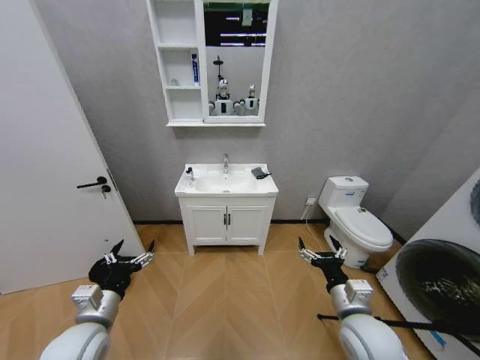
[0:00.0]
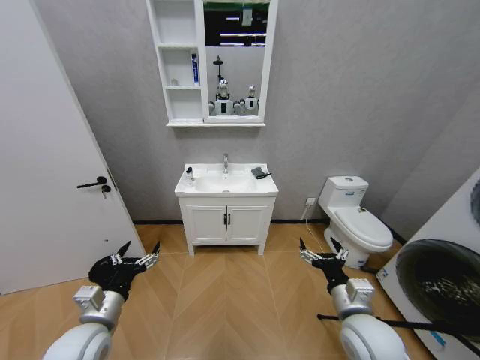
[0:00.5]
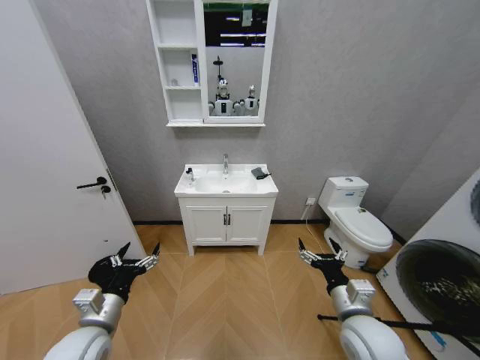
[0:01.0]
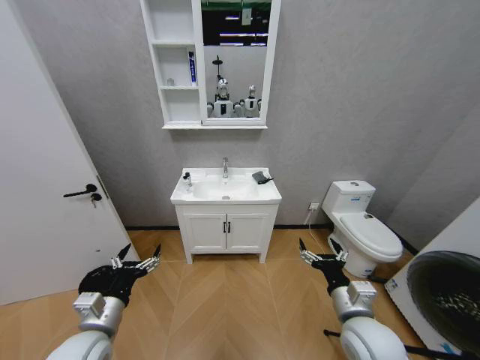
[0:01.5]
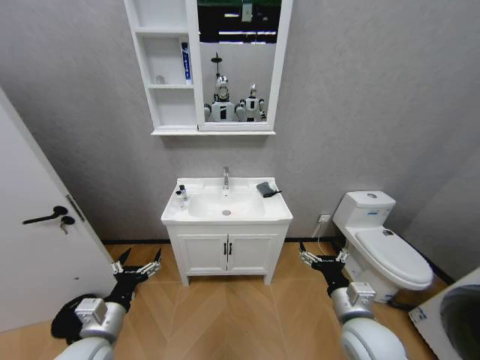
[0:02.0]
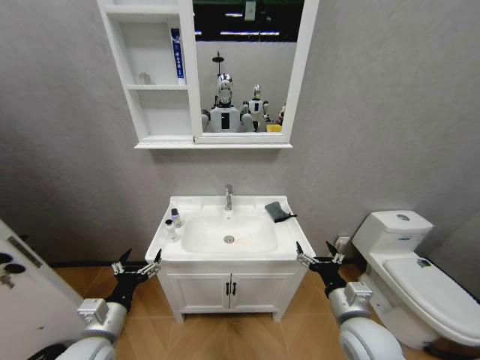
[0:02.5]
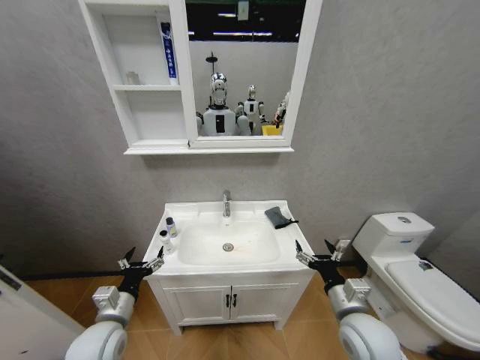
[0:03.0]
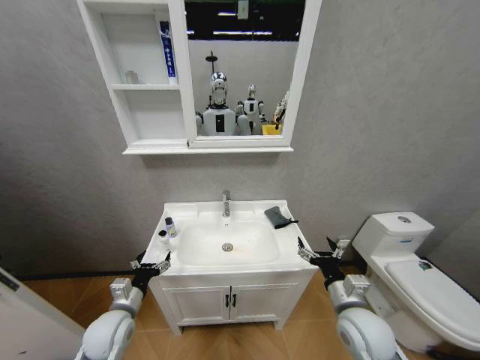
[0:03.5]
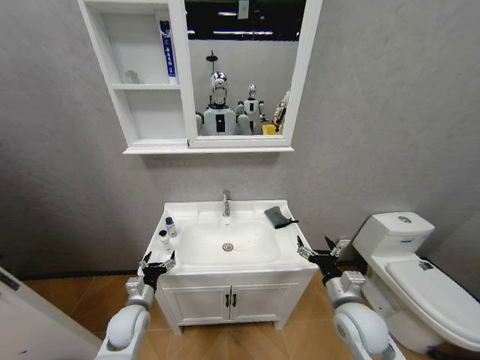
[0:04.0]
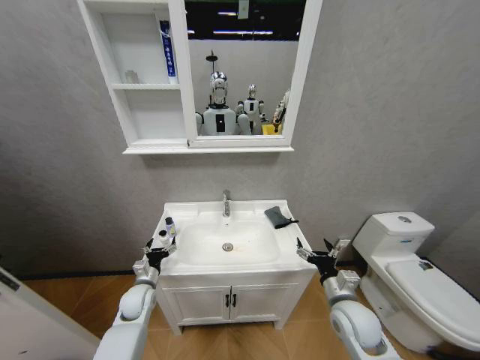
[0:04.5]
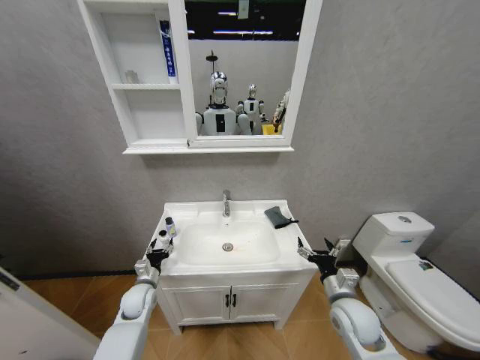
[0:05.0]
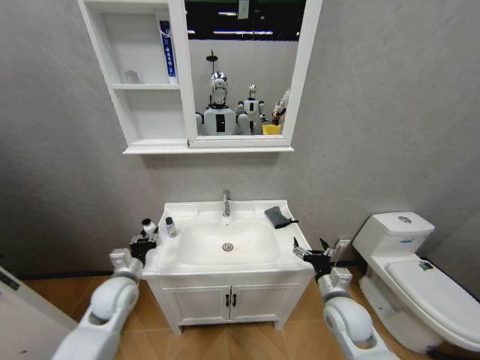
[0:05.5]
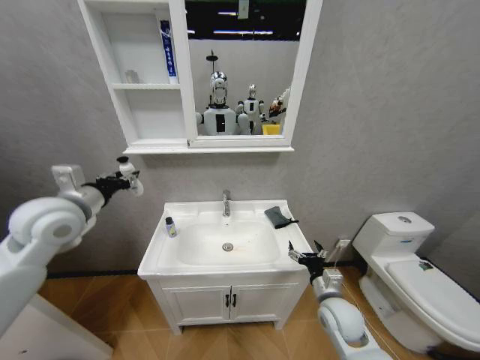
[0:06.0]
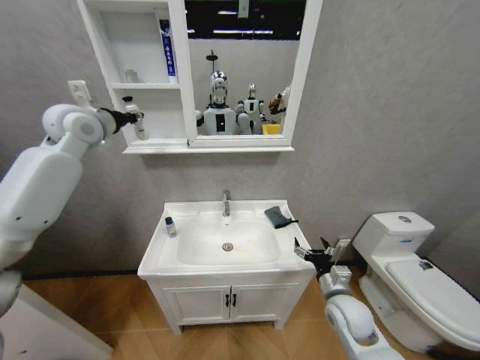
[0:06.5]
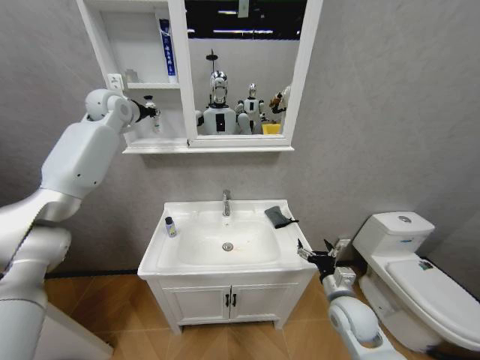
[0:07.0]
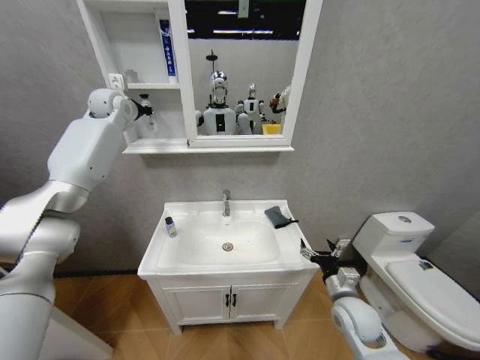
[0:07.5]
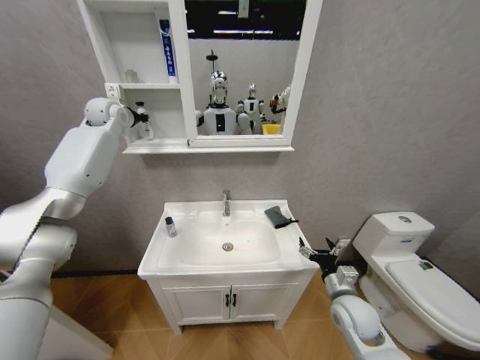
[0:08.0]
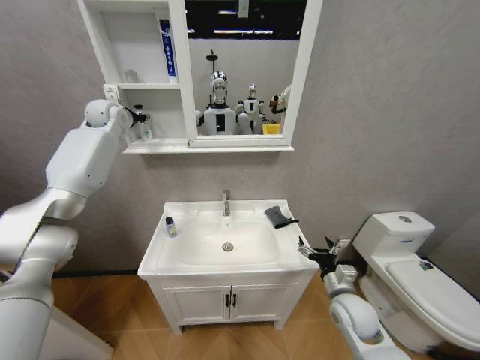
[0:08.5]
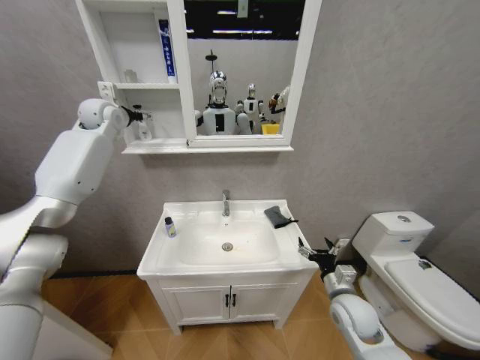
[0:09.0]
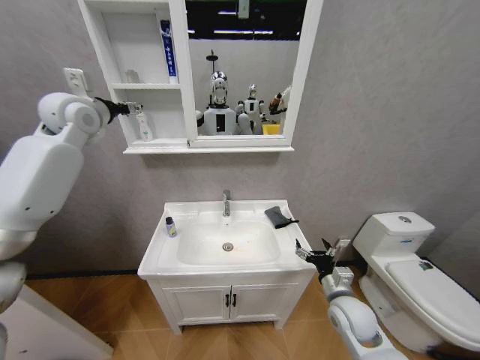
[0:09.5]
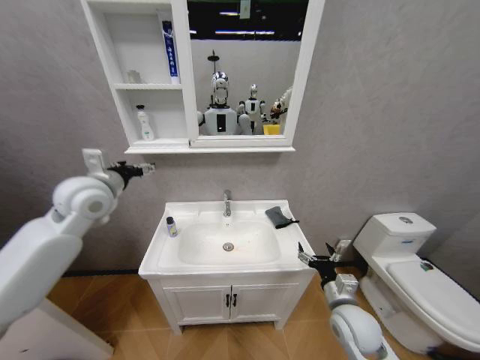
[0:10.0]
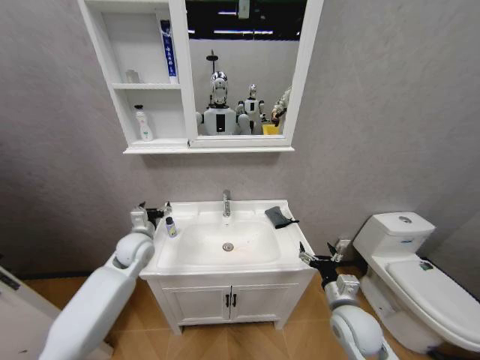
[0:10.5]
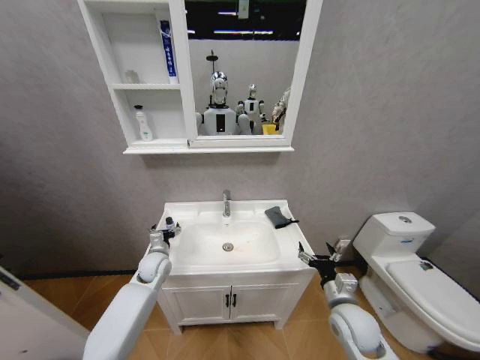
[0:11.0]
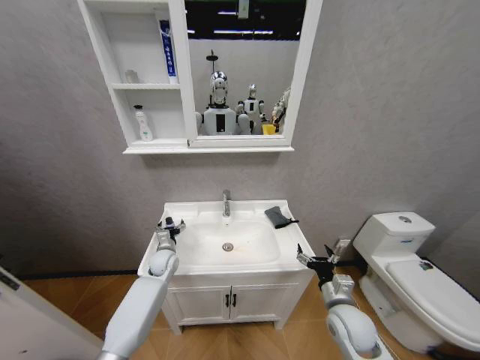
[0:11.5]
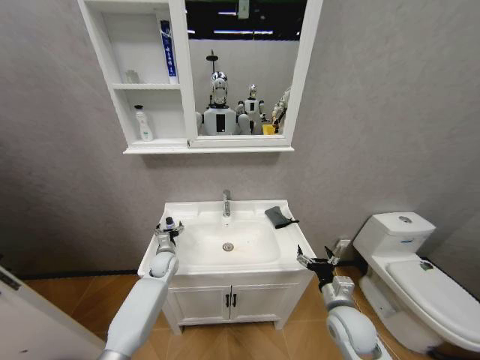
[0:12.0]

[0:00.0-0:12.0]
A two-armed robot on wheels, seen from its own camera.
Task of the whole recording: Move facial cleanser and shampoo from washbasin to cabinet, then wipe washbasin with towel.
0:02.0 to 0:04.0: The left gripper moves downward and forward, approximately 15 cm; the right gripper changes place by about 5 cm.
0:04.0 to 0:06.0: The right gripper shifts by about 5 cm; the left gripper goes some 35 cm upward, and closes its fingers.
0:06.0 to 0:08.0: The left gripper travels forward and upward by some 30 cm.
0:08.0 to 0:10.0: The left gripper shifts some 25 cm backward and downward, and opens its fingers.
0:10.0 to 0:12.0: The left gripper shifts some 35 cm downward.

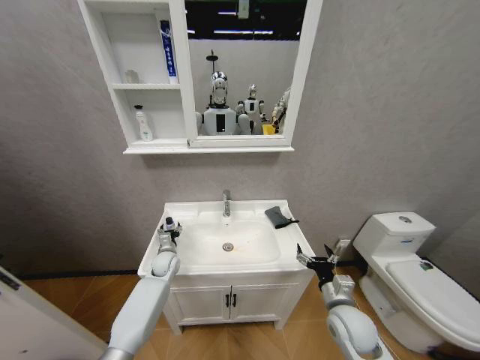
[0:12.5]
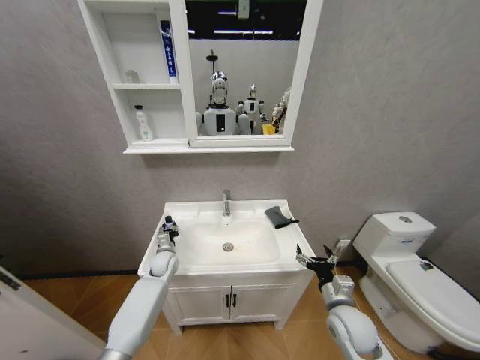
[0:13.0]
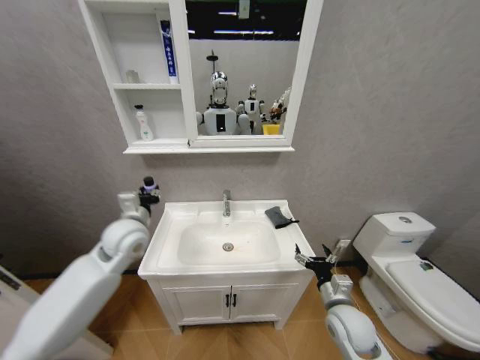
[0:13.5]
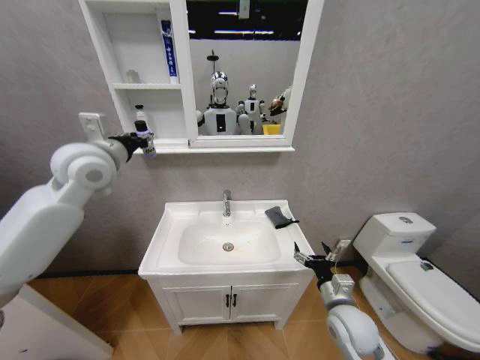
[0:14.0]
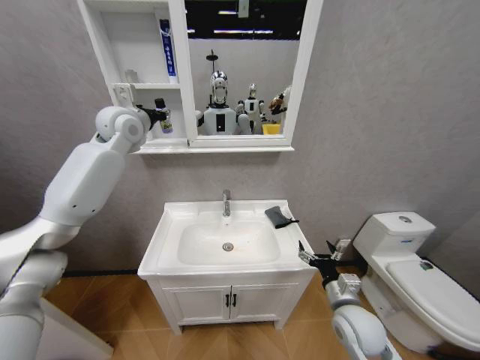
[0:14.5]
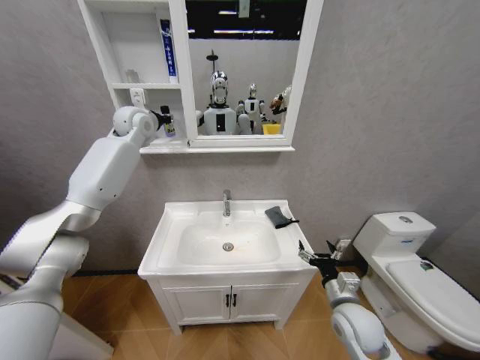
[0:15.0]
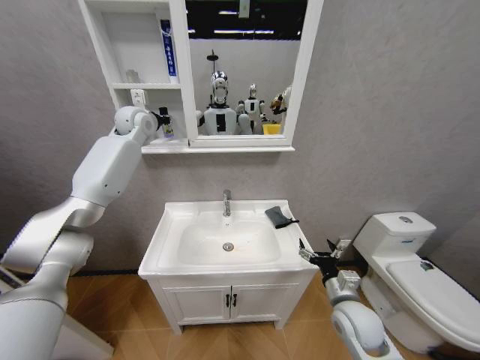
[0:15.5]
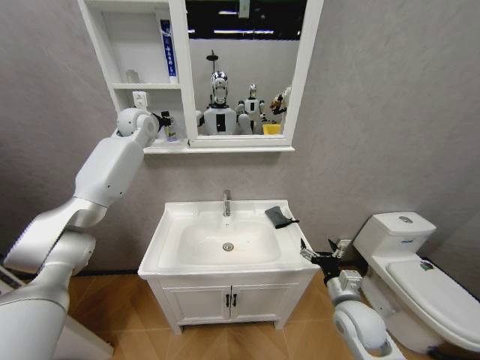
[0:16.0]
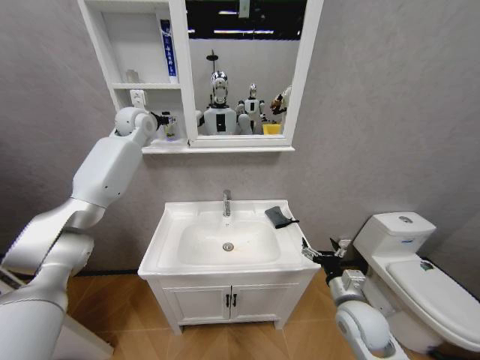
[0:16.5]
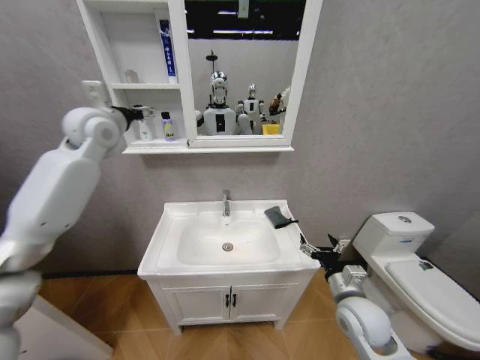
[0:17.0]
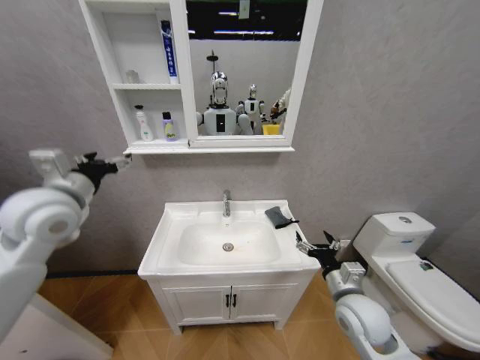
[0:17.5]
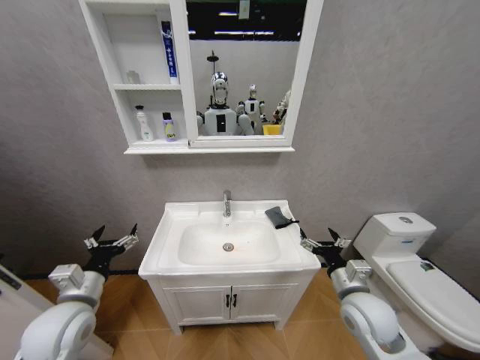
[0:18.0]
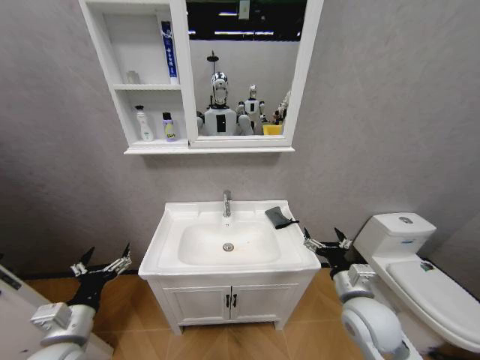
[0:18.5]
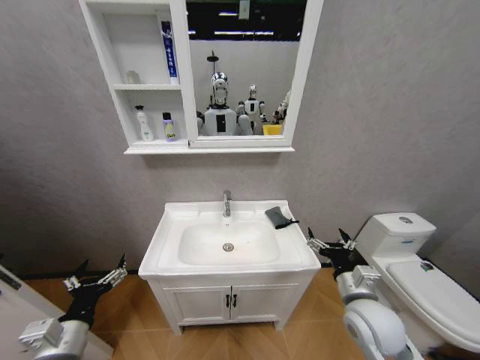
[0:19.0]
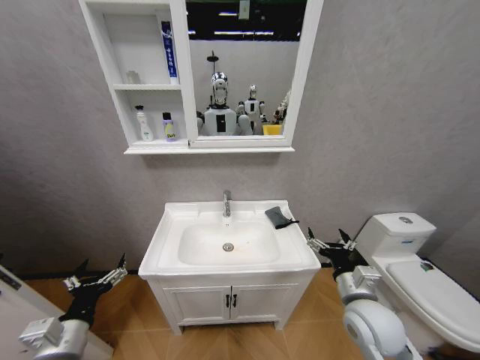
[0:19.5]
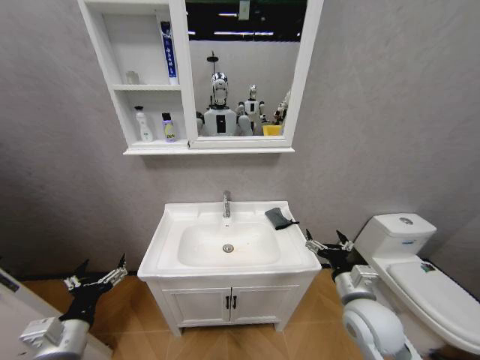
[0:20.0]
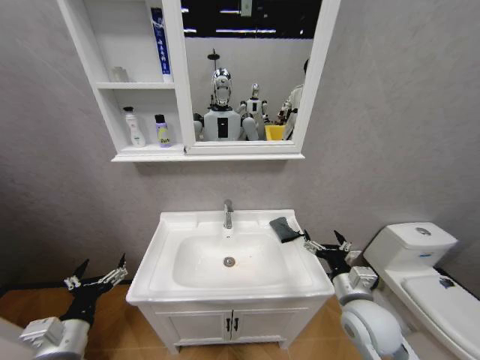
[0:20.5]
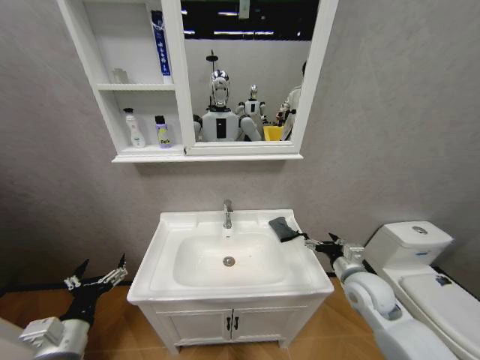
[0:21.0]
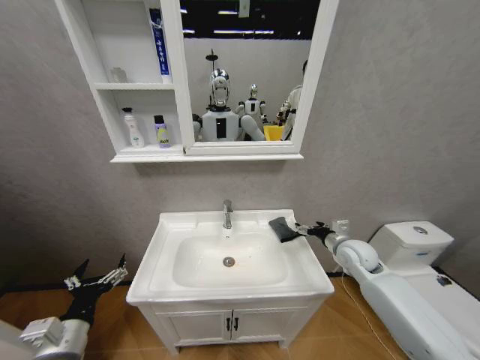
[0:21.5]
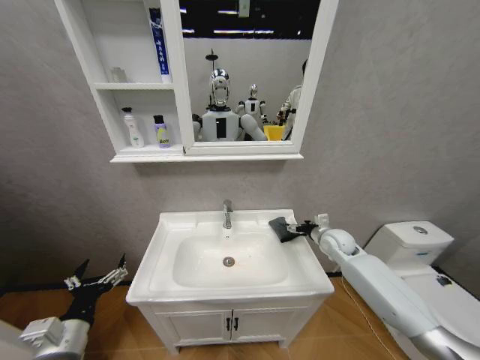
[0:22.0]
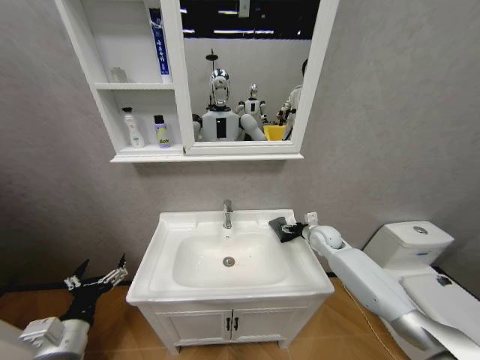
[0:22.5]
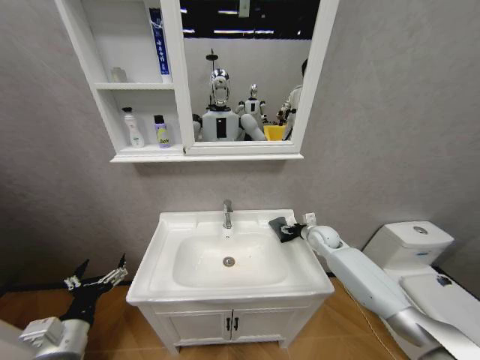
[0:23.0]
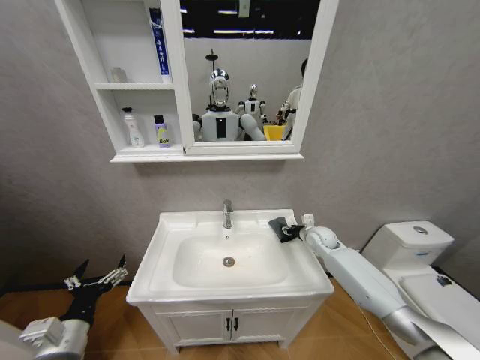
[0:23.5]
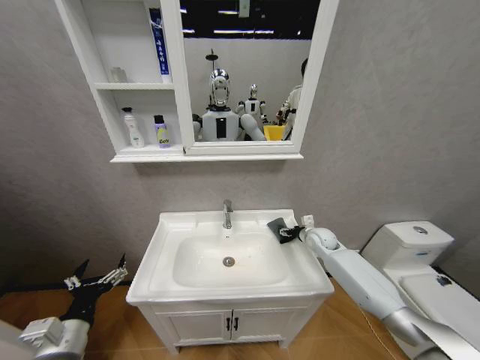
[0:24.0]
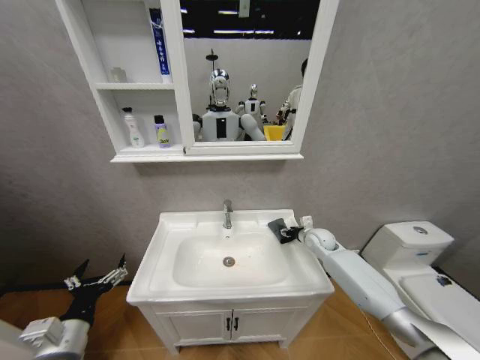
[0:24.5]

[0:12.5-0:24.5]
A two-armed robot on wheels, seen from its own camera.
Task of the whole recording: Move facial cleanser and shampoo from washbasin to cabinet, then wipe washbasin with towel.
0:12.5 to 0:14.5: The left gripper is displaced upward by about 50 cm, and closes its fingers.
0:14.5 to 0:16.5: The left gripper is displaced forward by about 5 cm, and opens.
0:16.5 to 0:18.5: The left gripper travels backward and downward by some 60 cm. Meanwhile the right gripper moves approximately 5 cm.
0:20.5 to 0:22.5: The right gripper travels forward by approximately 25 cm.
0:22.5 to 0:24.5: The grippers move only a little.

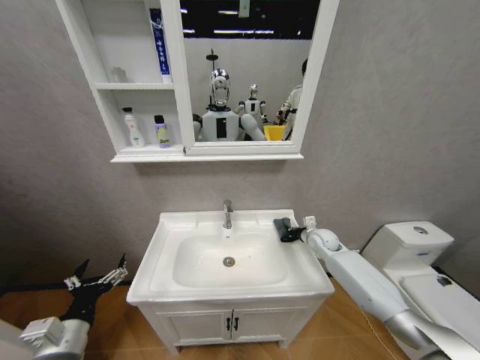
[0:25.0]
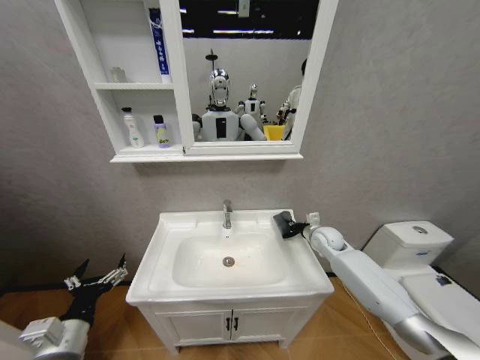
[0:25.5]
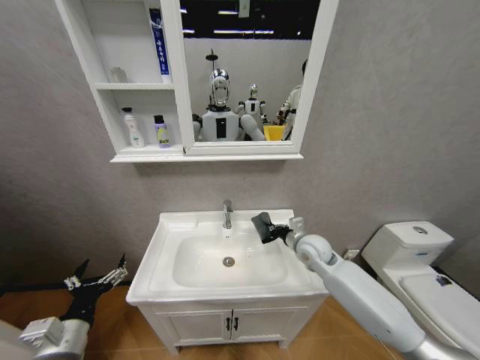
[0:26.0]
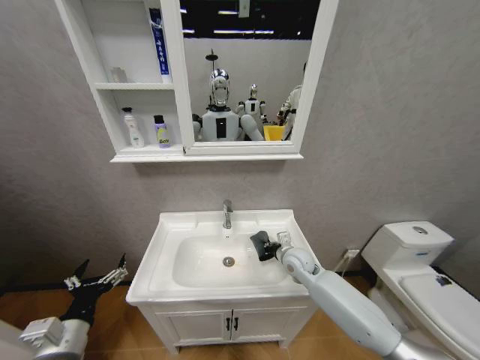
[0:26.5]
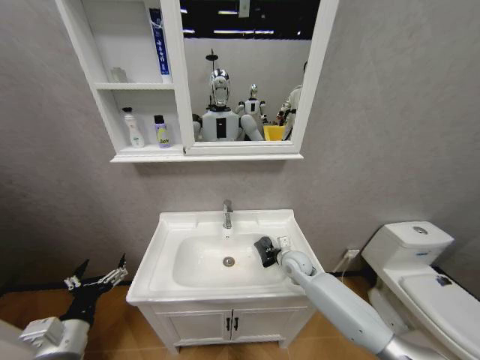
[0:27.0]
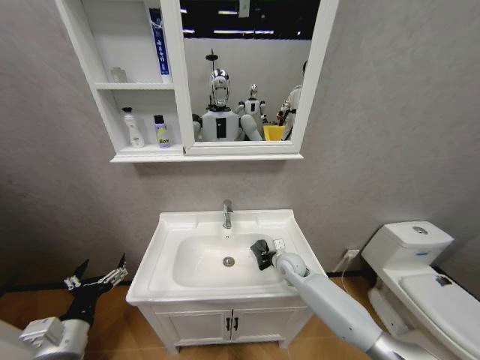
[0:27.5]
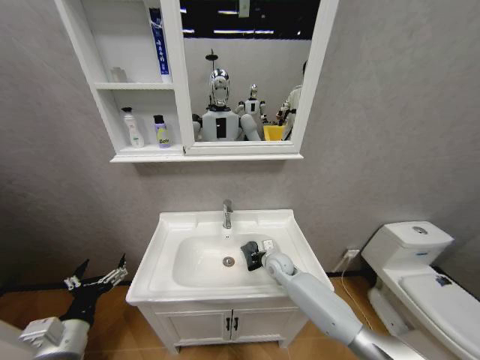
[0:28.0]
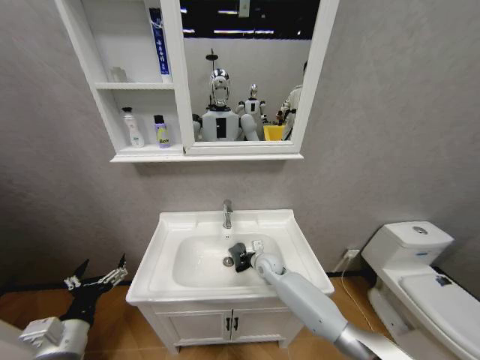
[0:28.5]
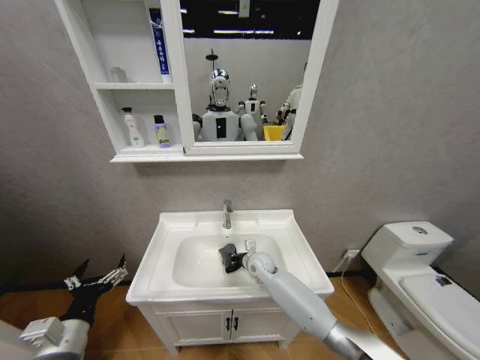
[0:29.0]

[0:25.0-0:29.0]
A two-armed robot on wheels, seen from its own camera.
Task of the whole recording: Move facial cleanser and shampoo from washbasin to cabinet, then wipe washbasin with towel.
0:25.0 to 0:27.0: The right gripper shifts some 15 cm to the left and backward.
0:27.0 to 0:29.0: The right gripper shifts roughly 10 cm to the left.
